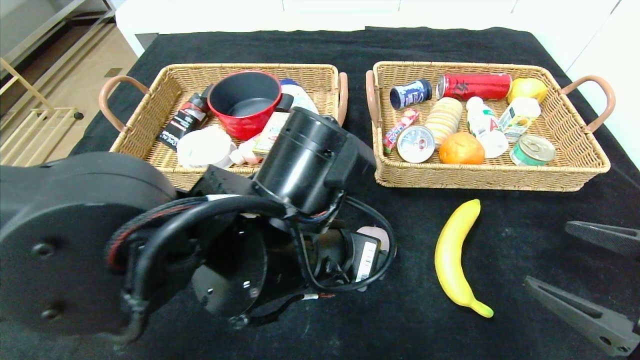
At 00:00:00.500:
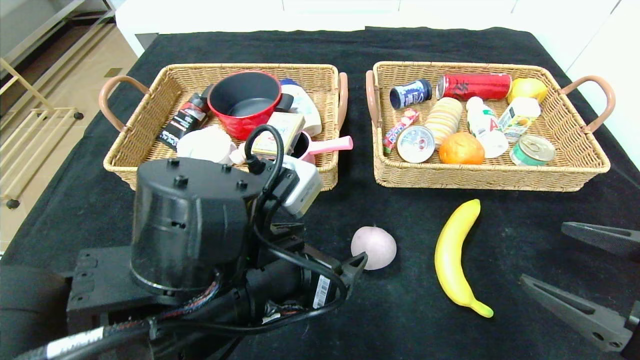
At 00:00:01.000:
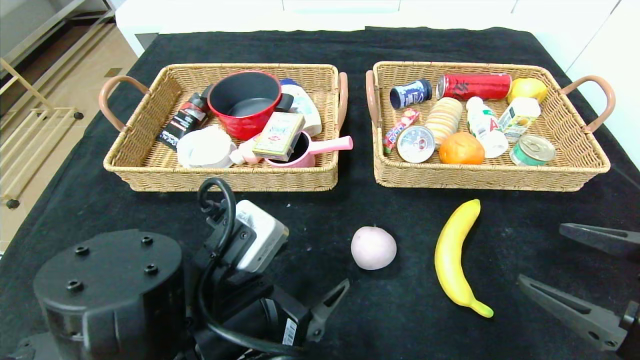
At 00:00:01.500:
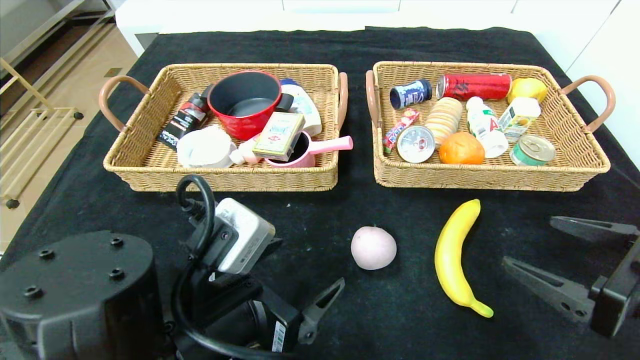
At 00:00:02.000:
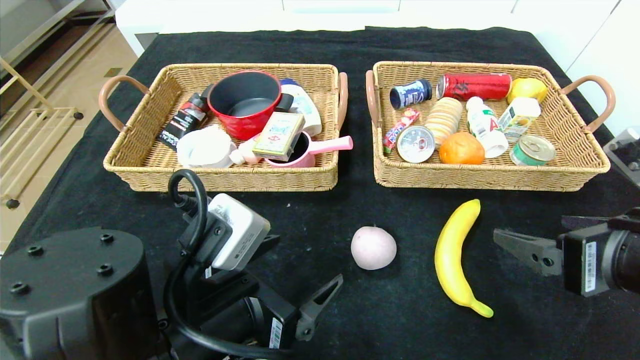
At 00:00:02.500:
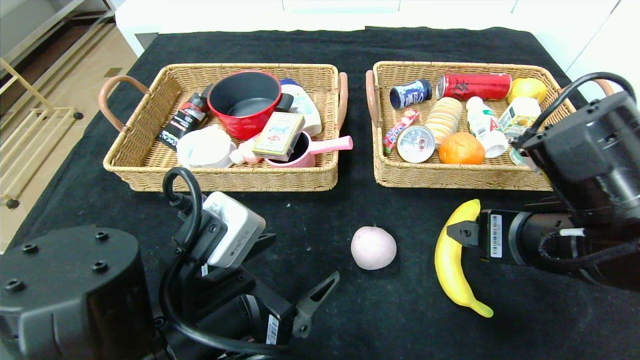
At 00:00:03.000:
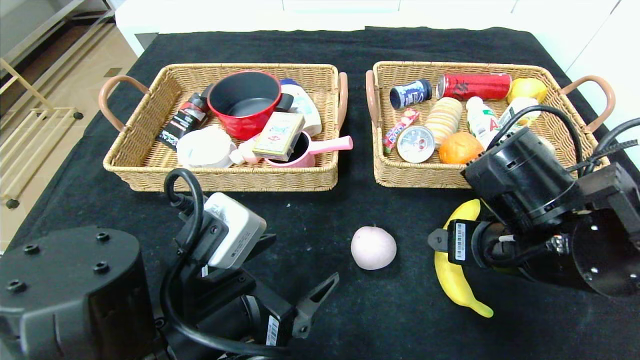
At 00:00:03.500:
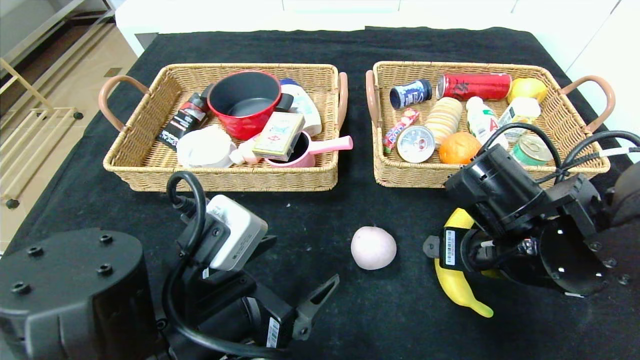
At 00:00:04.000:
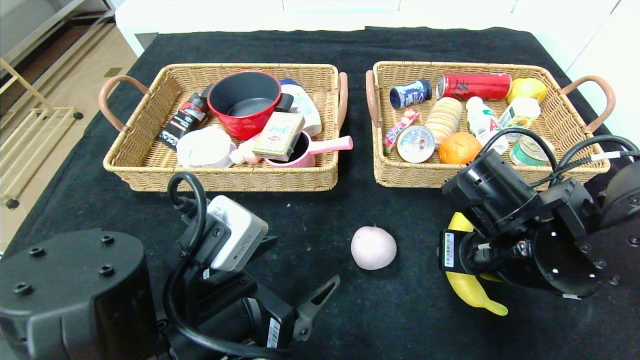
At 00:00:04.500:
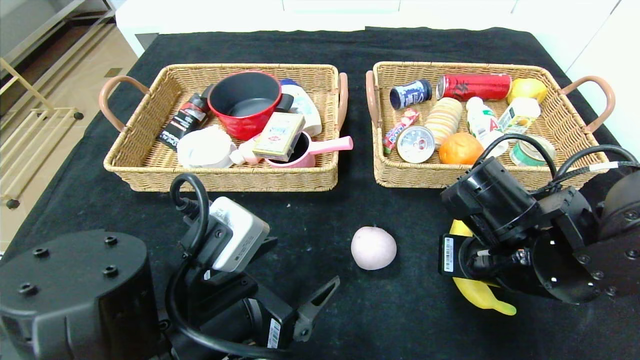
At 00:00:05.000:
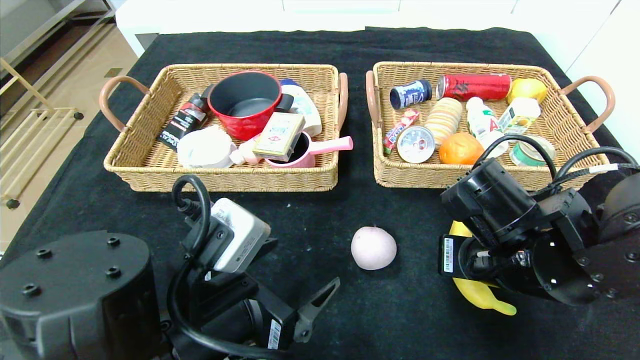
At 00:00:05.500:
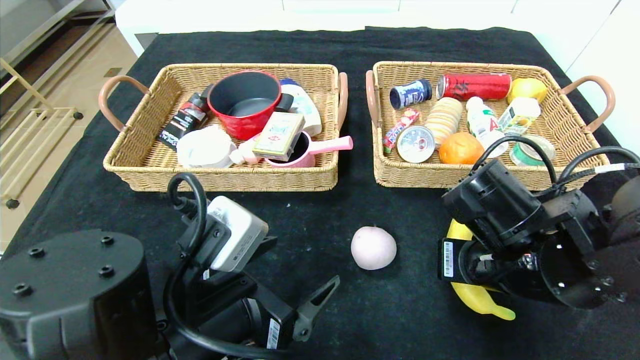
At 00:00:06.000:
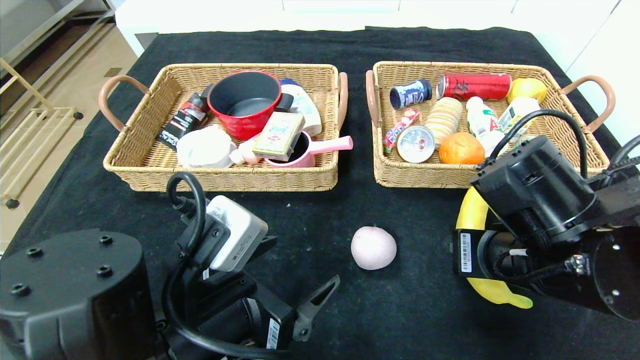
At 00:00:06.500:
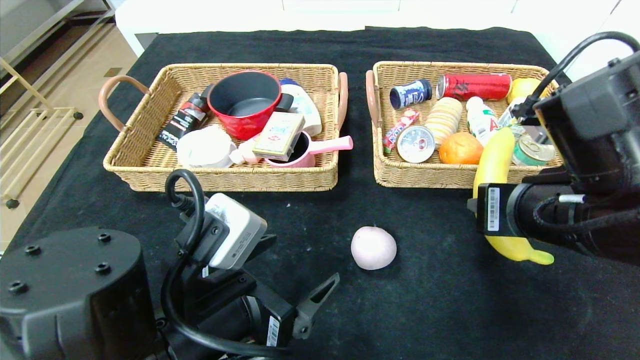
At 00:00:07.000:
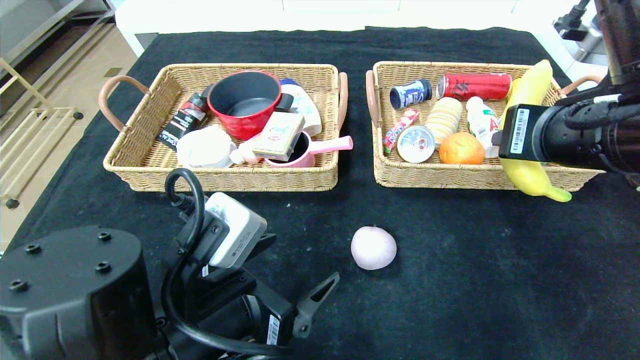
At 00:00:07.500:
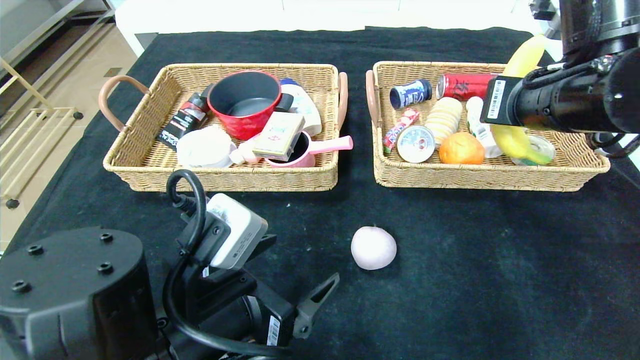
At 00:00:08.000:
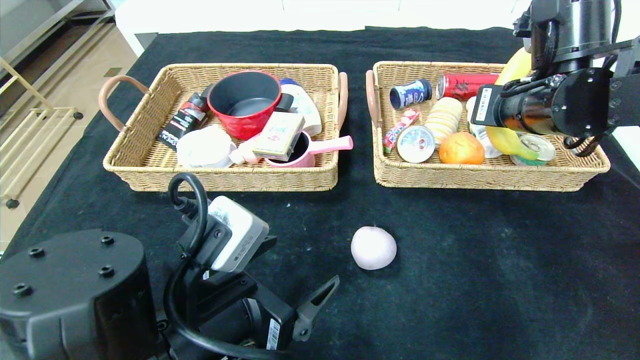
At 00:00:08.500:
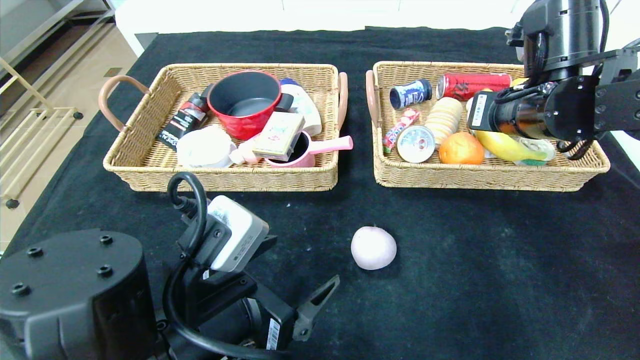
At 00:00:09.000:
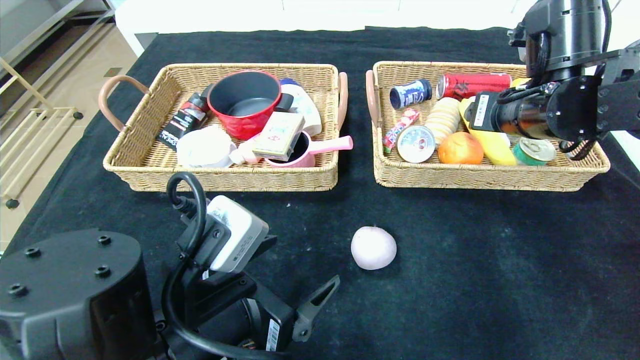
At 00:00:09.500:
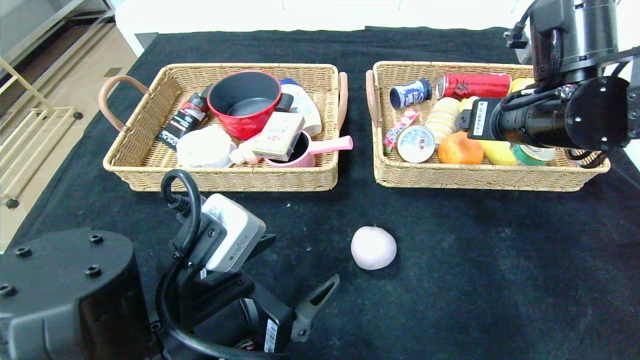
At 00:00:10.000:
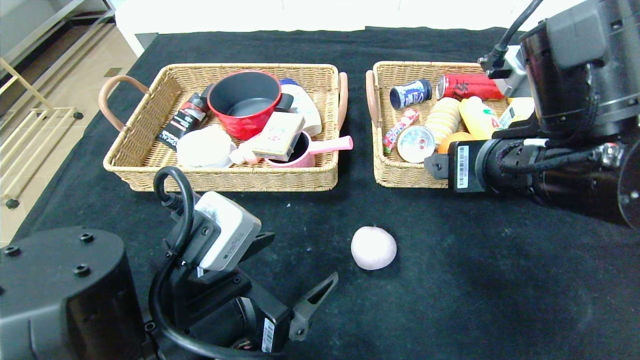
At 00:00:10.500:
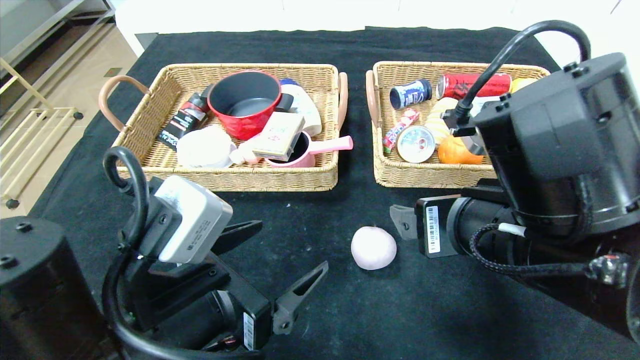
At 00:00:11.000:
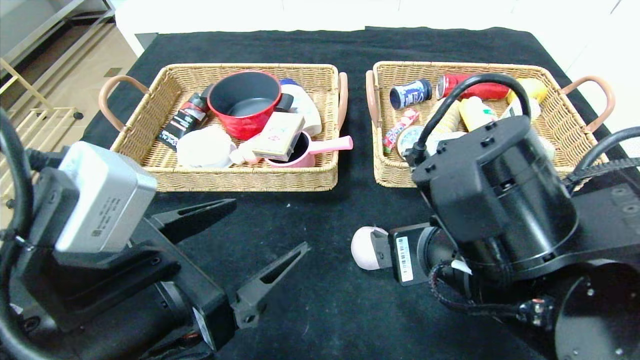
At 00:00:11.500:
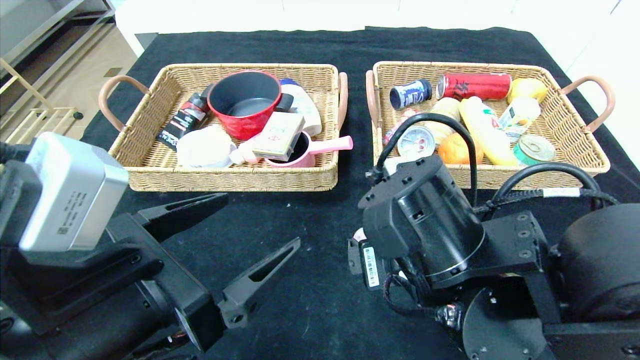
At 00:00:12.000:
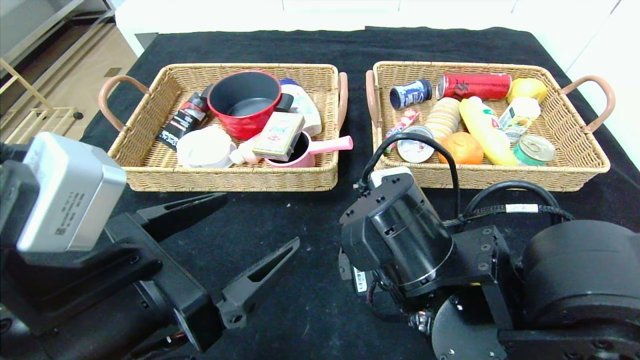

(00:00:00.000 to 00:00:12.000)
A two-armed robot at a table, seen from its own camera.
Step, 00:00:00.000 - 00:00:08.500: Grasp the banana and put it in the right basket.
00:00:00.000 - 00:00:02.000: The grippers both shift to the left by about 5 cm.
00:00:02.000 - 00:00:04.000: The right gripper heads forward, to the left and downward, covering about 10 cm, and closes up.
00:00:04.000 - 00:00:06.000: The grippers make only small movements.
00:00:06.000 - 00:00:08.000: The right gripper is displaced forward and upward by roughly 15 cm.
00:00:08.000 - 00:00:10.000: The right gripper goes some 10 cm backward and to the left, and opens.
00:00:10.000 - 00:00:12.000: The left gripper ends up some 5 cm from where it was; the right gripper is displaced downward and to the left by about 15 cm.

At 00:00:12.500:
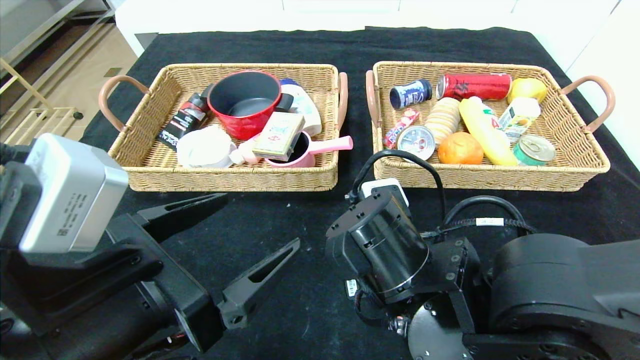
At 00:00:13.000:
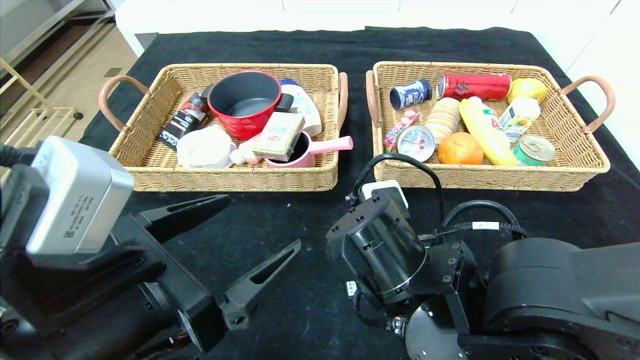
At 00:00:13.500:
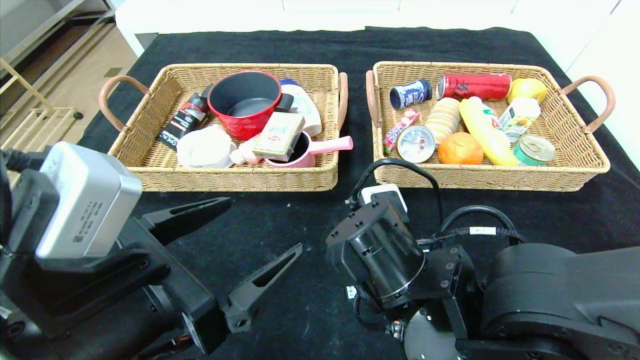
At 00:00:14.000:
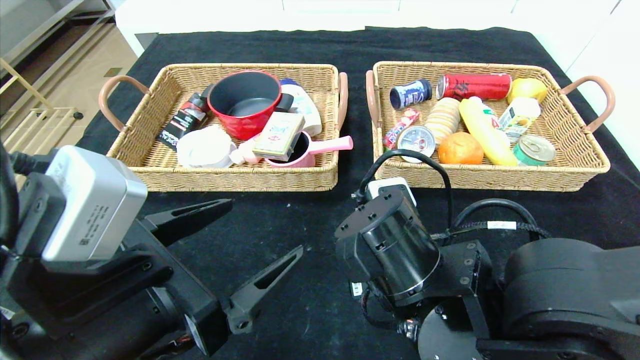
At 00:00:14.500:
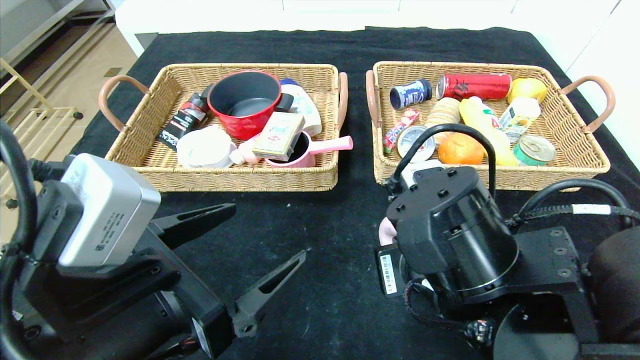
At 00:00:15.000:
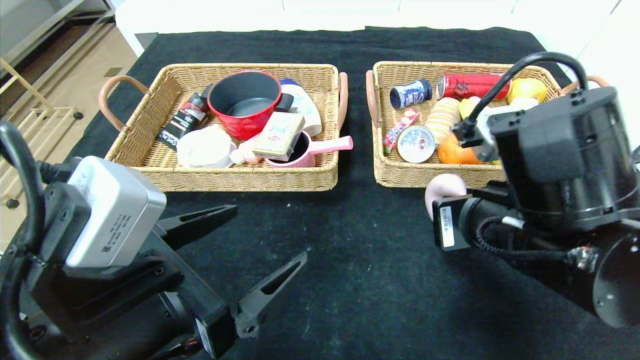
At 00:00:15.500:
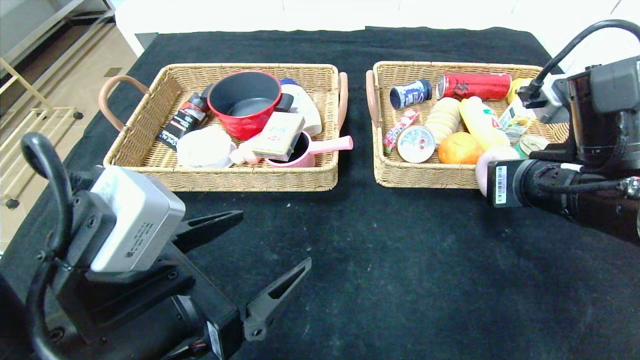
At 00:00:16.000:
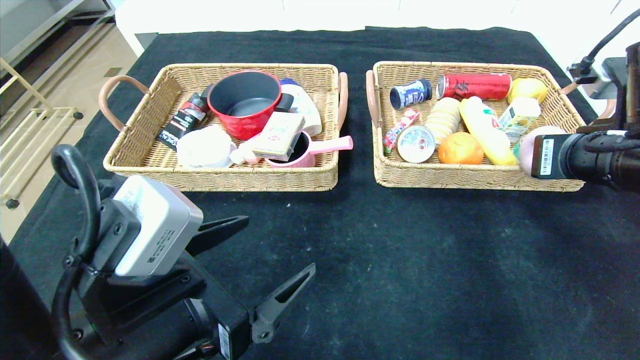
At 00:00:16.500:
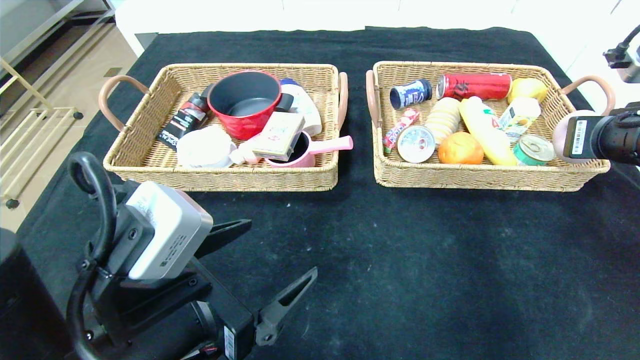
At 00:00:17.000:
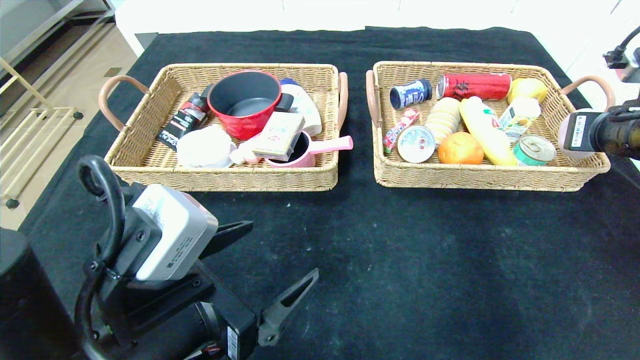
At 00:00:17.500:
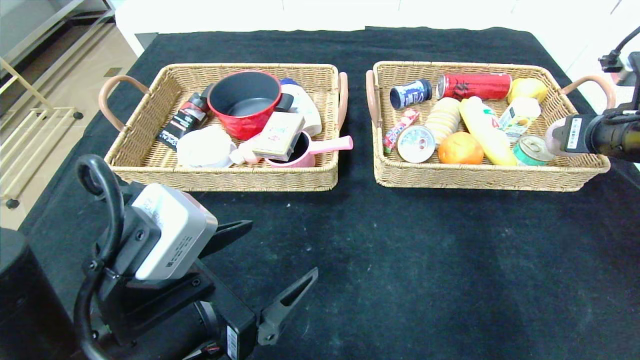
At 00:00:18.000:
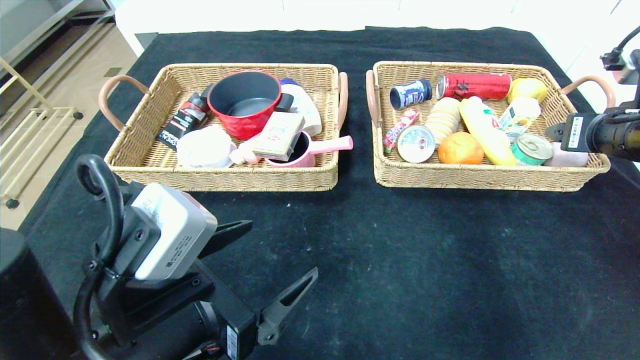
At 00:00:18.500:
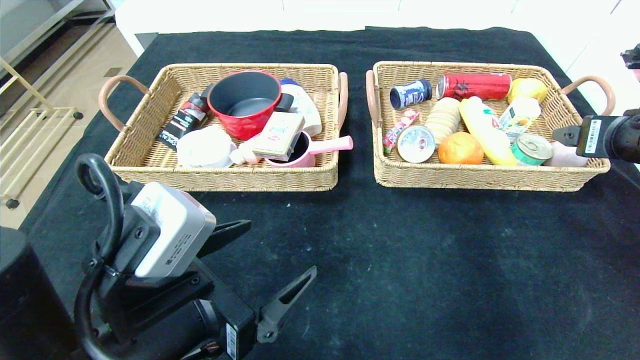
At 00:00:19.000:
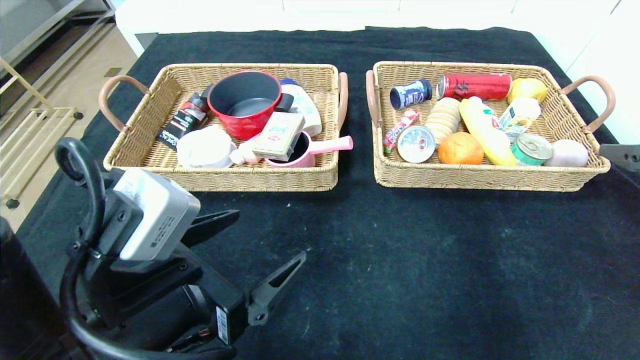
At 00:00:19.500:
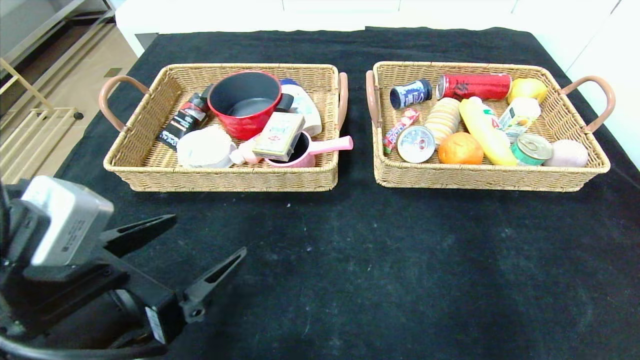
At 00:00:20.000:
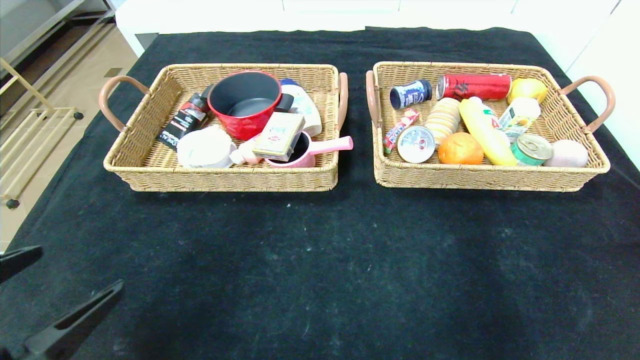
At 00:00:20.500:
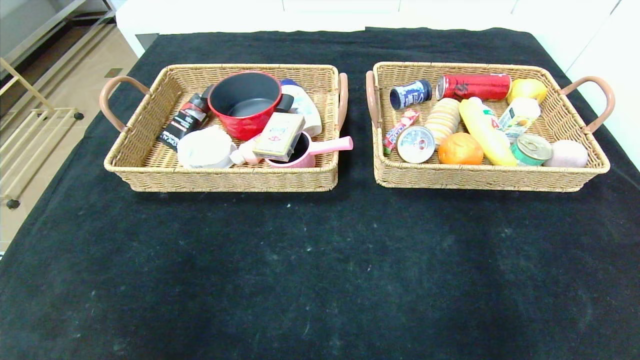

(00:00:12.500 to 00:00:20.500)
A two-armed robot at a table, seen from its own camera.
Step, 00:00:12.500 - 00:00:17.500: Grasp the peach and put it in the right basket.
00:00:12.500 - 00:00:14.500: The right gripper moves approximately 5 cm, and closes its fingers.
00:00:14.500 - 00:00:16.500: The right gripper shifts some 25 cm to the right and forward.
00:00:16.500 - 00:00:18.500: The right gripper opens its fingers.
00:00:18.500 - 00:00:20.500: The left gripper is displaced to the left and backward by approximately 20 cm, while the right gripper moves backward, some 35 cm.
